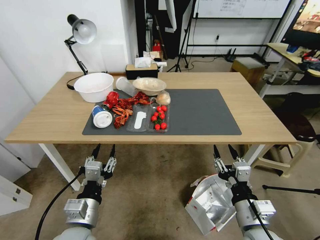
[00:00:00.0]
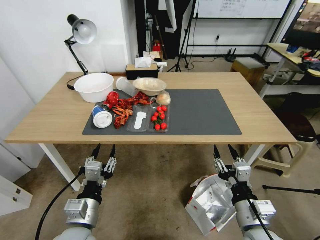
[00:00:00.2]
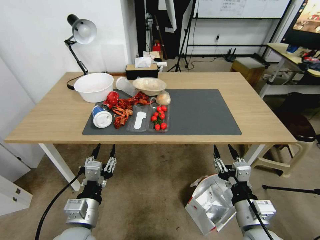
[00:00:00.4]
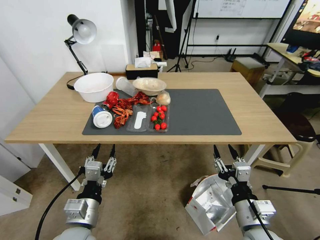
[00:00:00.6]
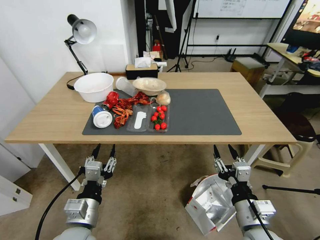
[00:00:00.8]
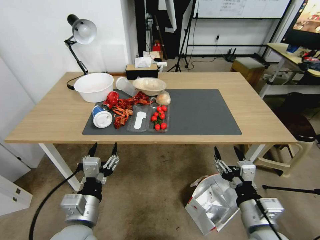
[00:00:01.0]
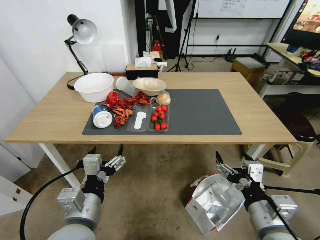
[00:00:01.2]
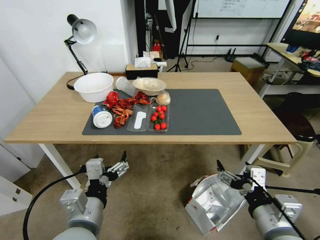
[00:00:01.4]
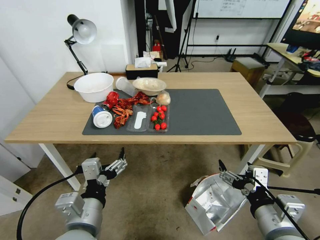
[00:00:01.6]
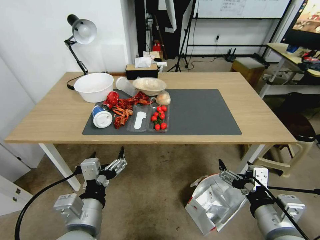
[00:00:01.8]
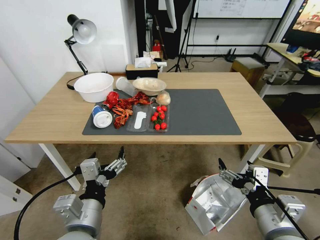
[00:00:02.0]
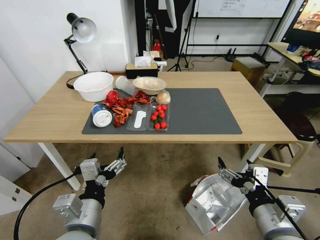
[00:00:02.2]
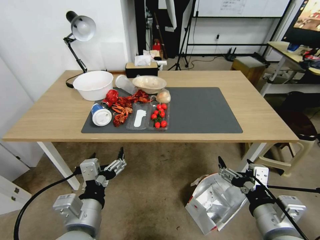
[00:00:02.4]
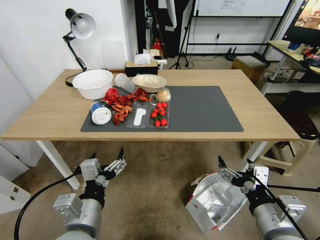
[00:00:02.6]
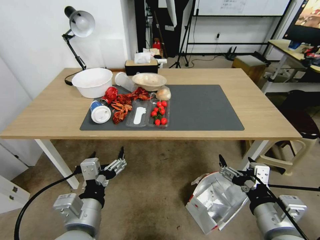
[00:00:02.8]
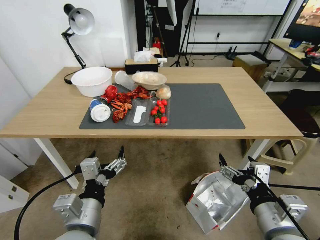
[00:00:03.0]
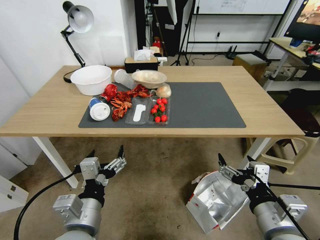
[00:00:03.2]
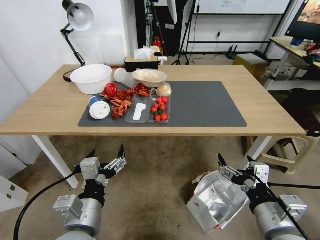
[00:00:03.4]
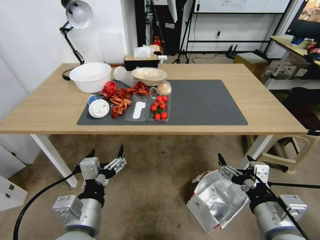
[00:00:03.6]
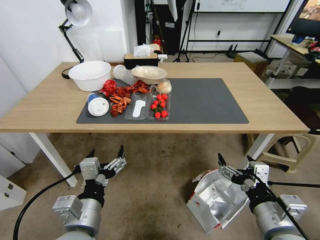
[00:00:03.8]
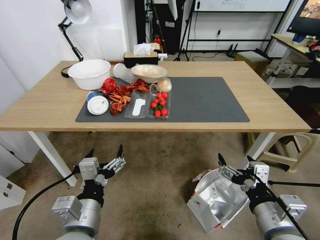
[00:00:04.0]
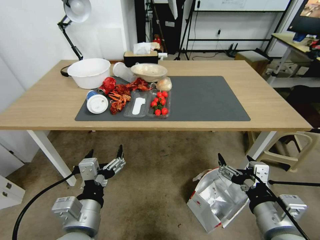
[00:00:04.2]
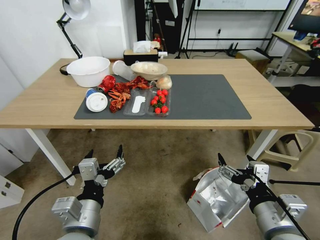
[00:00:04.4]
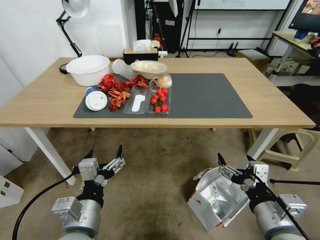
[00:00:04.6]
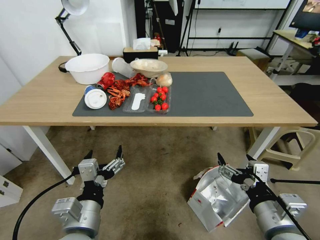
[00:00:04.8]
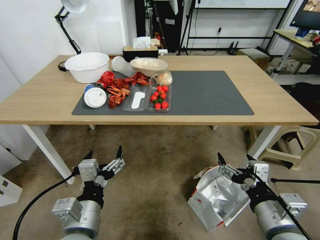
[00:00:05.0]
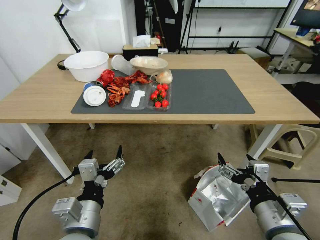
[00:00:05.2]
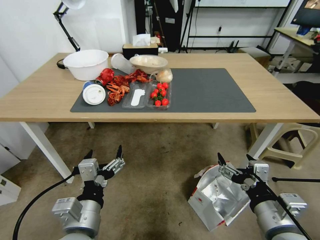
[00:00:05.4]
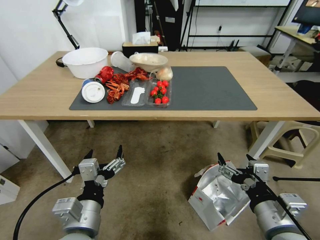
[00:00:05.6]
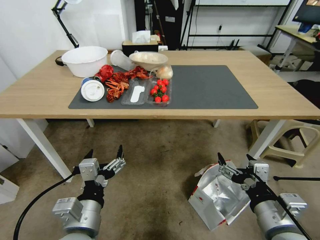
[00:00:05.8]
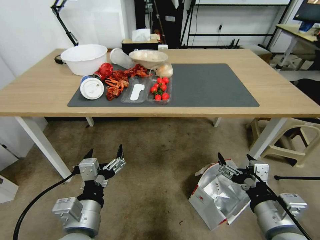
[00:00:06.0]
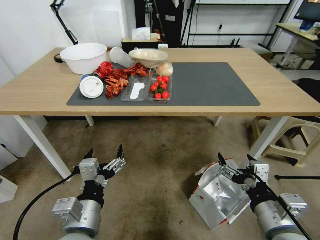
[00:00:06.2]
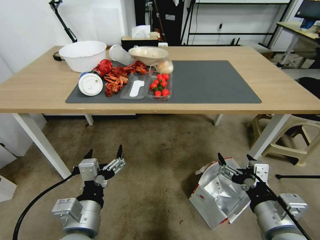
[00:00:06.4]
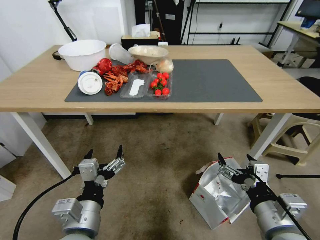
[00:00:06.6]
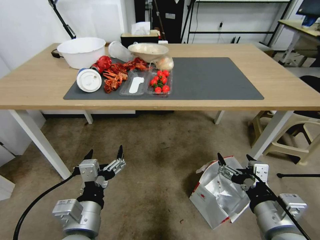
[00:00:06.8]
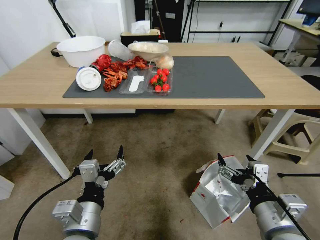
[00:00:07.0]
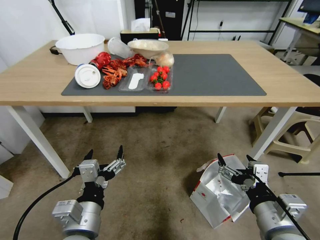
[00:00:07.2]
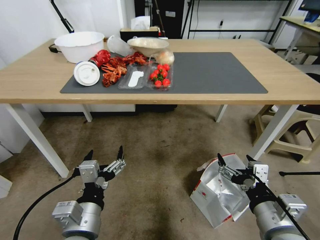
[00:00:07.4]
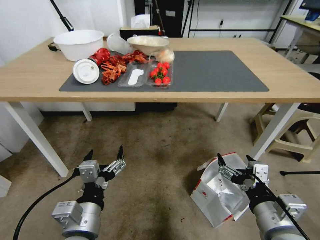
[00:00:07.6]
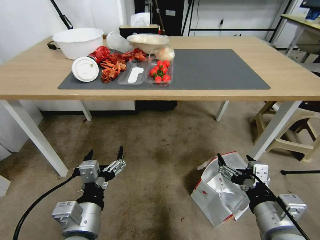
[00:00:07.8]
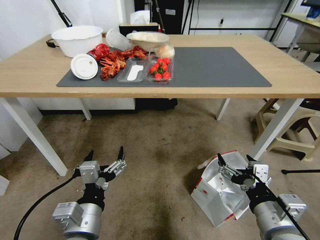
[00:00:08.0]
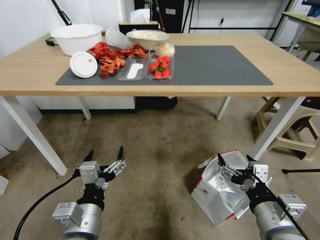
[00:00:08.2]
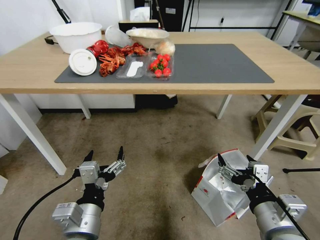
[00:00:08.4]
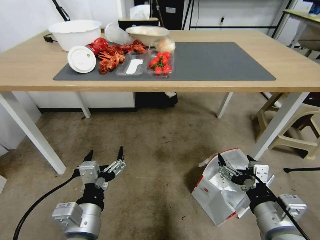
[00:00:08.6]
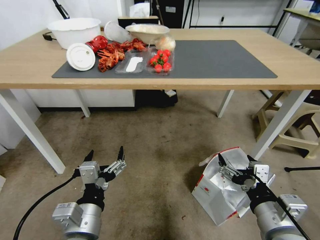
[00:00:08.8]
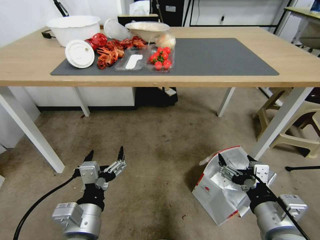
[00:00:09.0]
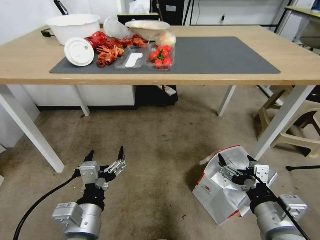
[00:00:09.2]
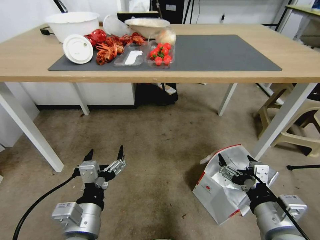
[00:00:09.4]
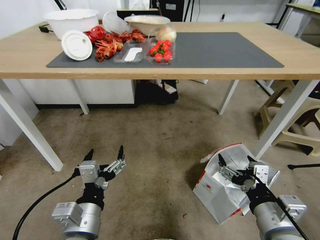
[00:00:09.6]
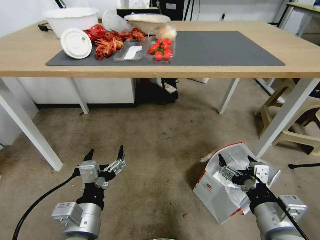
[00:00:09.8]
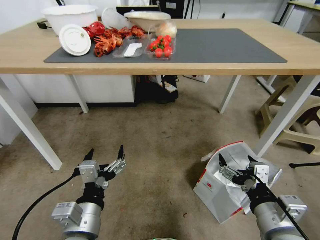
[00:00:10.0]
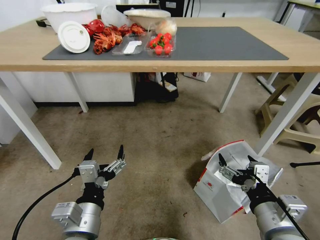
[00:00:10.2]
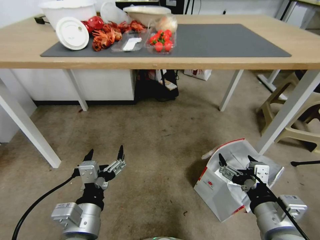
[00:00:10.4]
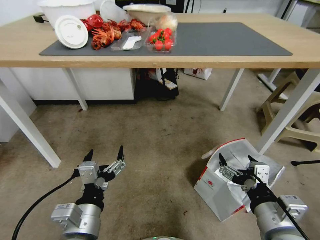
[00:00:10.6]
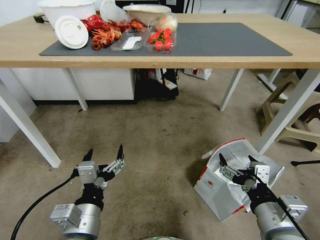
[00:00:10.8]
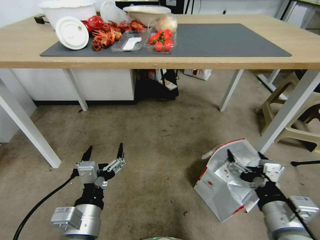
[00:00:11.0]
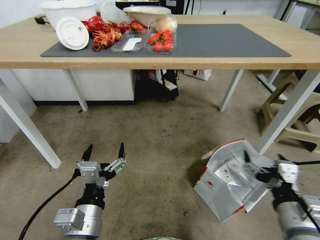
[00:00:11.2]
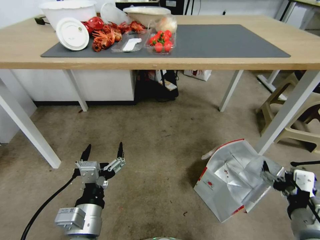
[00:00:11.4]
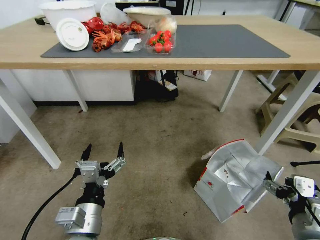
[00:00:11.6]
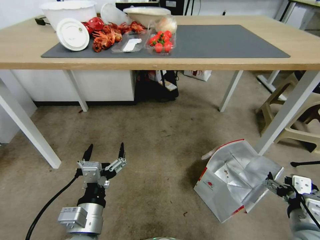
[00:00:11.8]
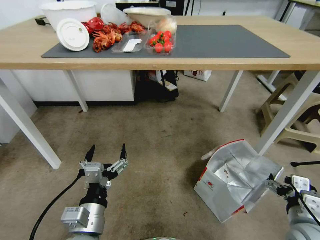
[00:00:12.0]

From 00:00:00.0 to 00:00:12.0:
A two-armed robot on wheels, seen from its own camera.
Task of the whole recording: Pick up the food delivery bag from the floor and place it on the table.
From 00:00:10.4 to 00:00:12.0: The right gripper heads to the right and downward, covering some 10 cm.

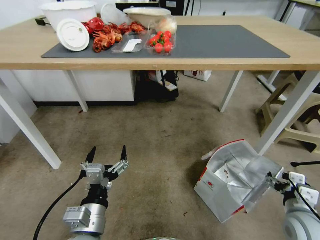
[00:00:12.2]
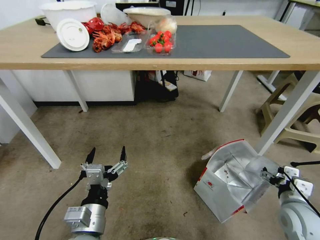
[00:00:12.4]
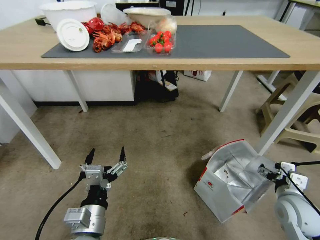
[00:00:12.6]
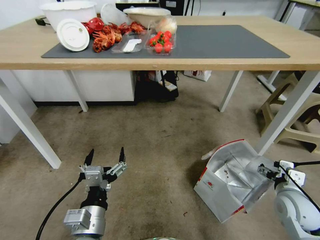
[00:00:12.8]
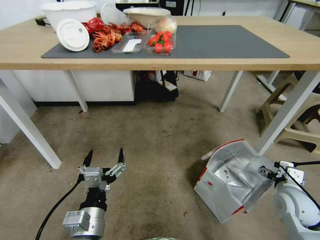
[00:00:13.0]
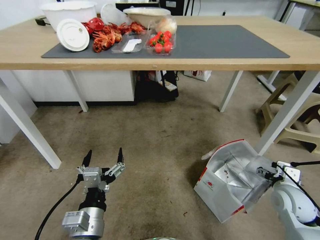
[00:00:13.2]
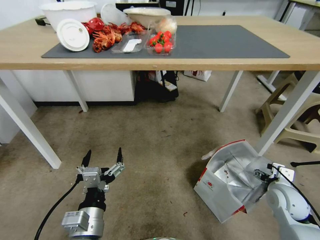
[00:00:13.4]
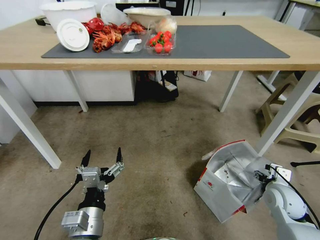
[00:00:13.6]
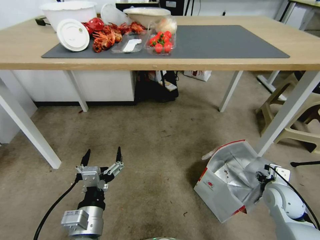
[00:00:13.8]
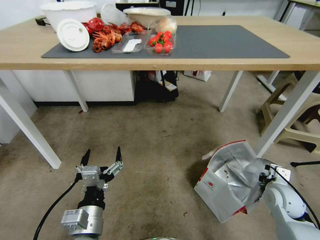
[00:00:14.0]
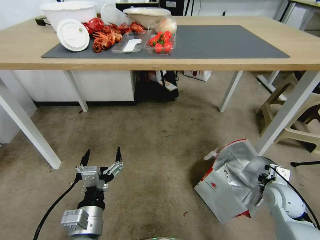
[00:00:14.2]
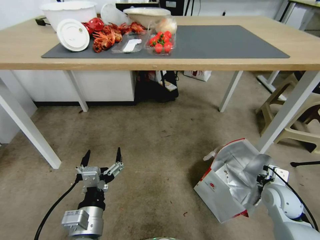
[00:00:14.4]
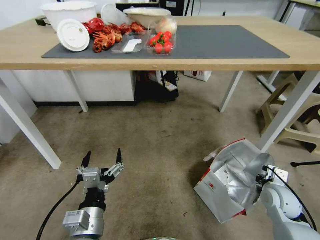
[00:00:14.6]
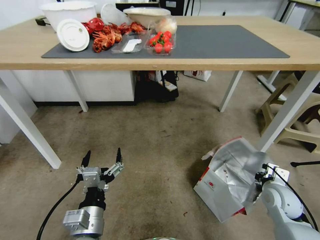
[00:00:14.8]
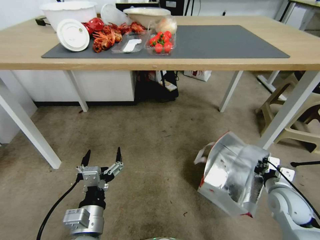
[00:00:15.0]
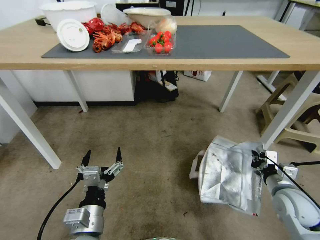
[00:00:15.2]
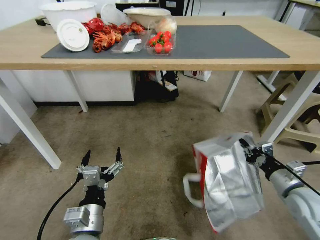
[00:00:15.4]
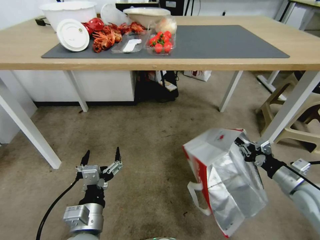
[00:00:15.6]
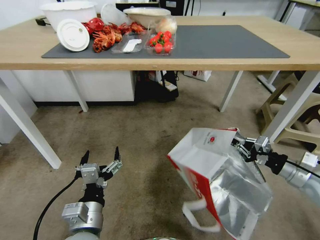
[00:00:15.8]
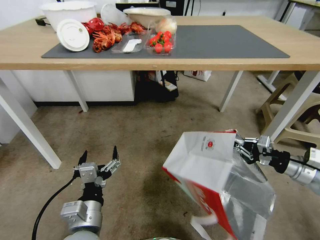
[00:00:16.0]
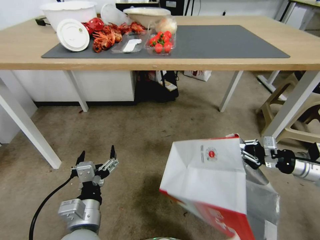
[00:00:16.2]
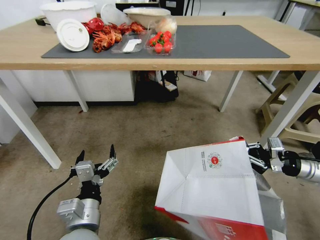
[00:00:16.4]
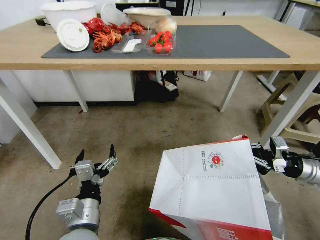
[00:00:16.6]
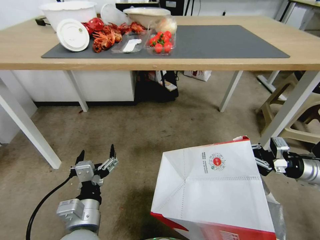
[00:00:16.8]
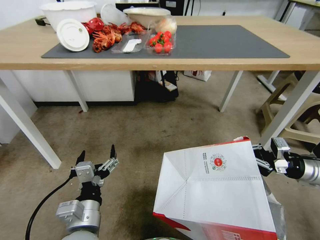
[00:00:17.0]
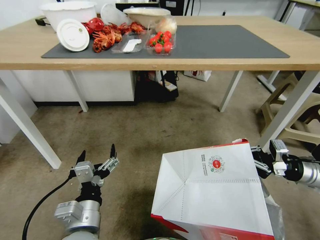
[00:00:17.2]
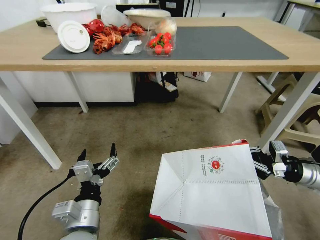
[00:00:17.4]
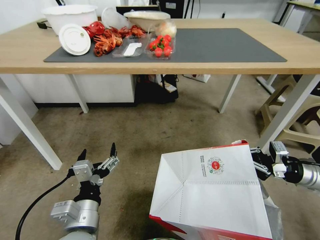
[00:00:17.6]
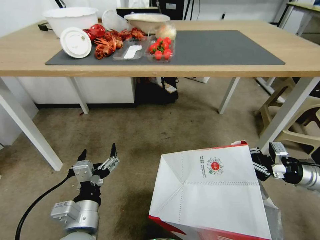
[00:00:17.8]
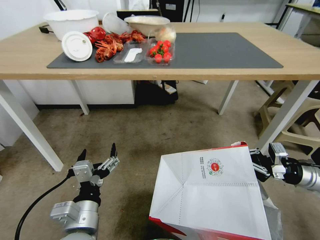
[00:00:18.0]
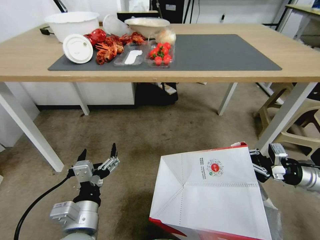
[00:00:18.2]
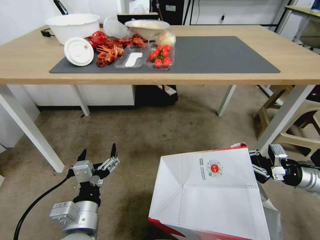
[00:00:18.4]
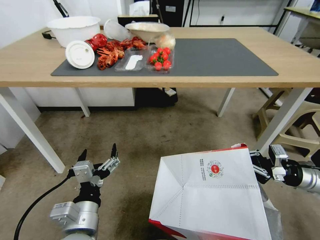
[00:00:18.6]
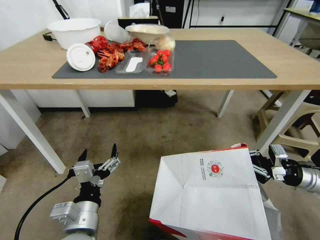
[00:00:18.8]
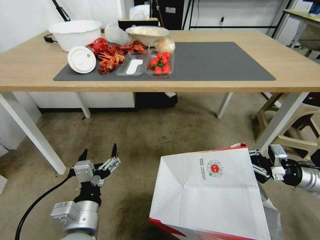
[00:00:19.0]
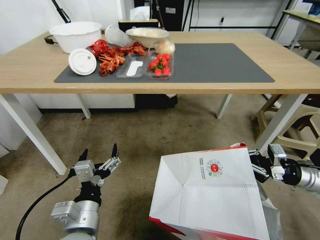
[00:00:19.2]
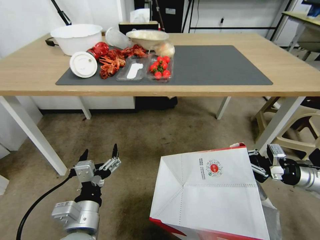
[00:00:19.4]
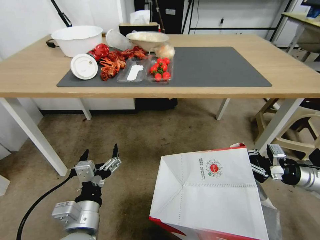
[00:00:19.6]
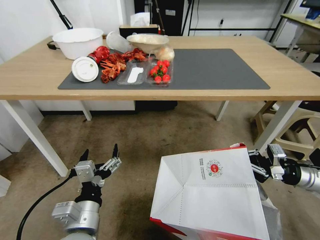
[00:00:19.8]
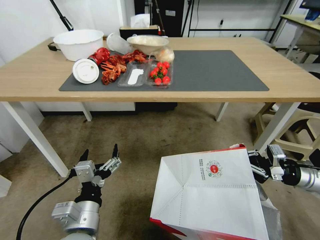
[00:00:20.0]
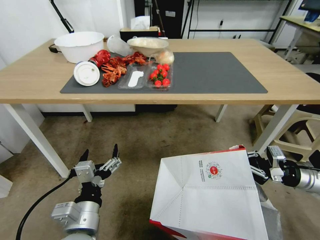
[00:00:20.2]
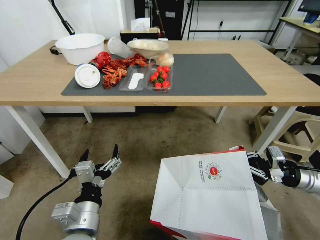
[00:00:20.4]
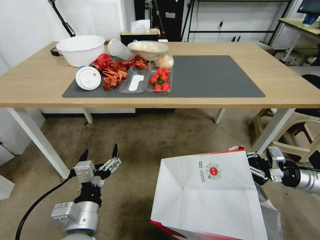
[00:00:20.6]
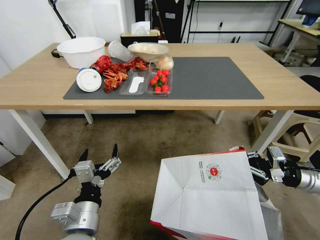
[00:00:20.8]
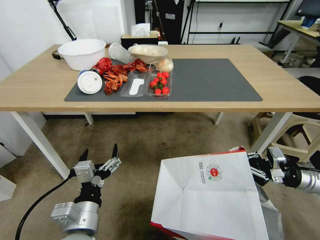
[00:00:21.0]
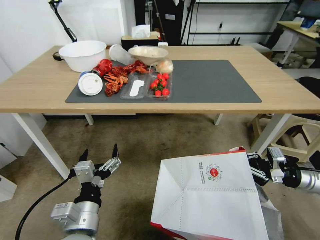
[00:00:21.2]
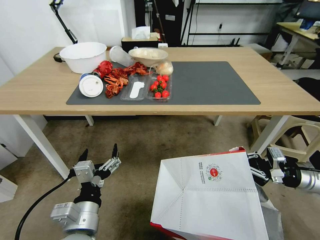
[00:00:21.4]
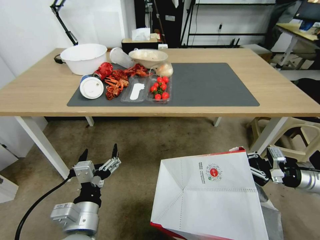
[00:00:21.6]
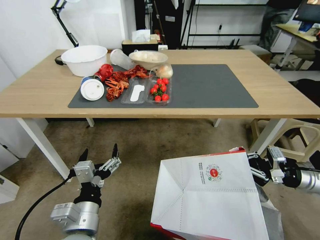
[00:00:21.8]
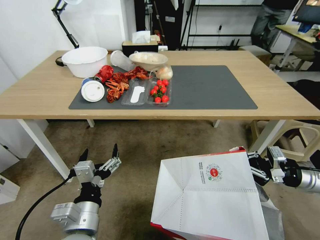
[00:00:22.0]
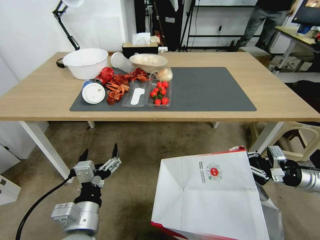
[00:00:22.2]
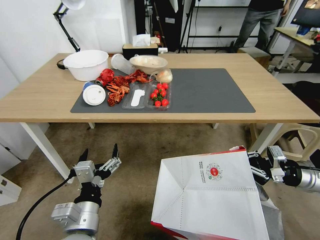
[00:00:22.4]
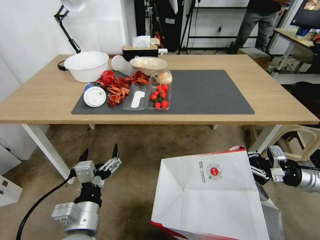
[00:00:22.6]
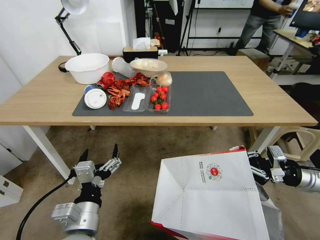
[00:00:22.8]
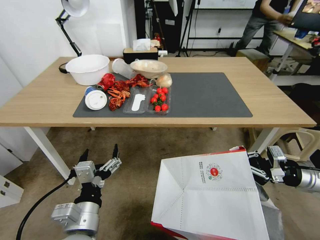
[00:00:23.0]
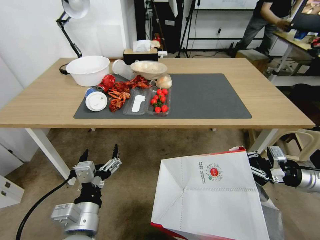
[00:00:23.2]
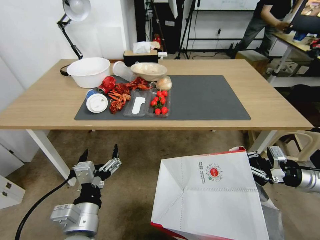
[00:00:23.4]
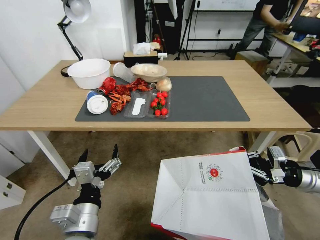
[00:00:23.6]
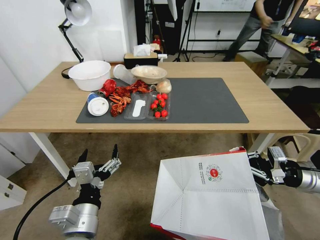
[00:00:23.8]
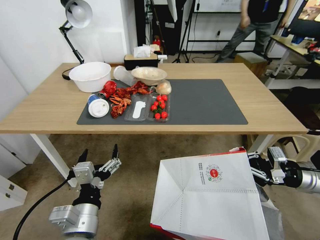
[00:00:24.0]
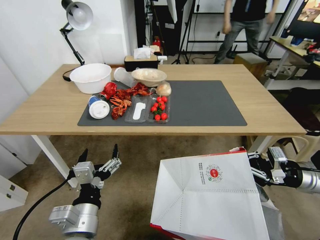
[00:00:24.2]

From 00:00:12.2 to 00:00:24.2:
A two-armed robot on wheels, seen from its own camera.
Task of the whole recording: Pick up the food delivery bag from the floor and place it on the table.
From 00:00:12.2 to 00:00:13.8: The right gripper is displaced forward and downward by some 10 cm, and closes its fingers.
From 00:00:13.8 to 00:00:15.2: The right gripper closes.
From 00:00:15.2 to 00:00:16.6: The right gripper heads upward, to the right and forward, covering about 15 cm.
